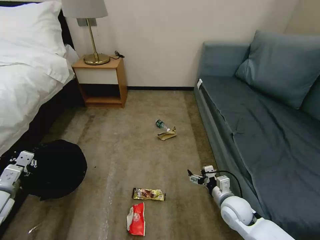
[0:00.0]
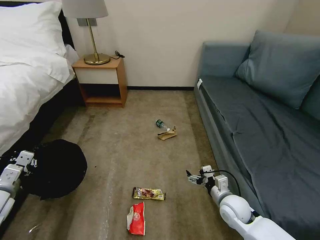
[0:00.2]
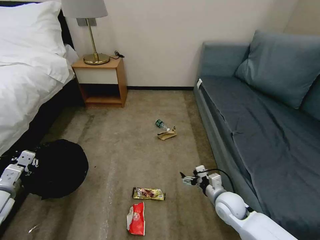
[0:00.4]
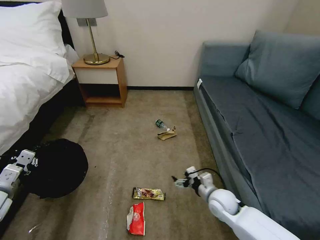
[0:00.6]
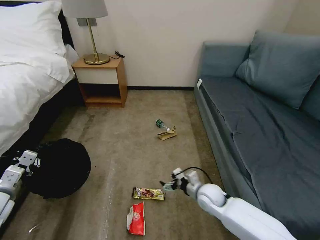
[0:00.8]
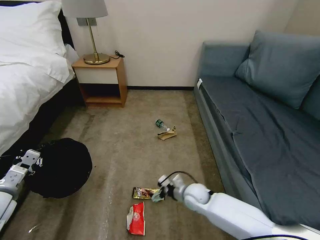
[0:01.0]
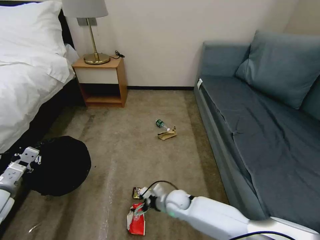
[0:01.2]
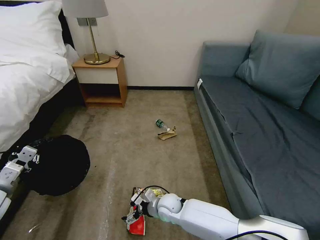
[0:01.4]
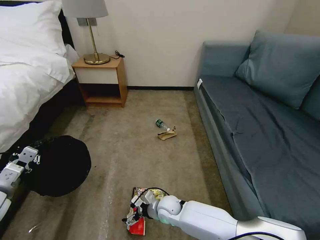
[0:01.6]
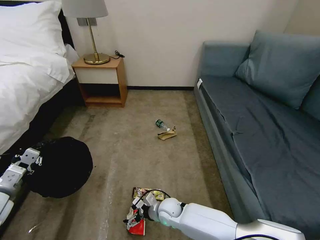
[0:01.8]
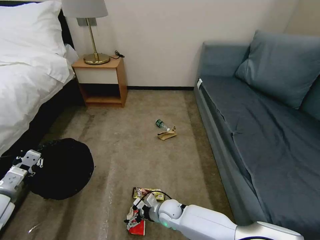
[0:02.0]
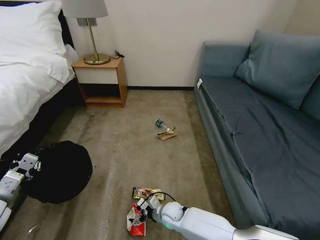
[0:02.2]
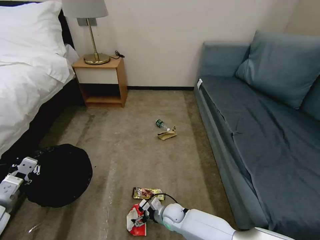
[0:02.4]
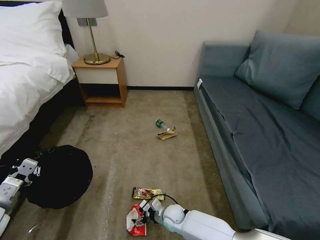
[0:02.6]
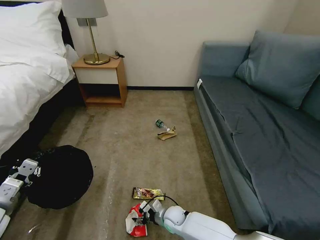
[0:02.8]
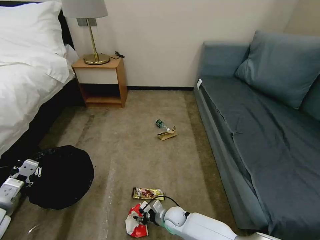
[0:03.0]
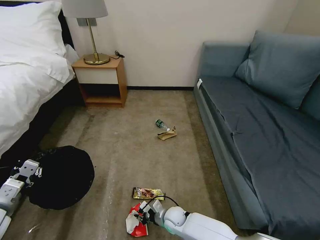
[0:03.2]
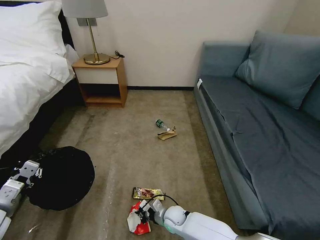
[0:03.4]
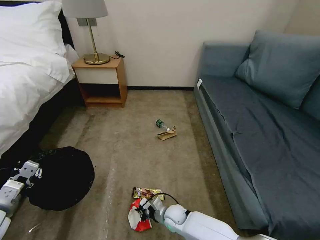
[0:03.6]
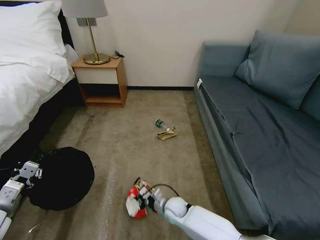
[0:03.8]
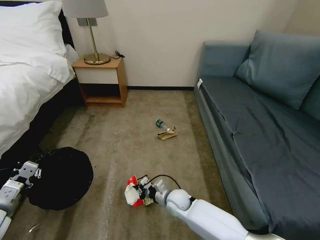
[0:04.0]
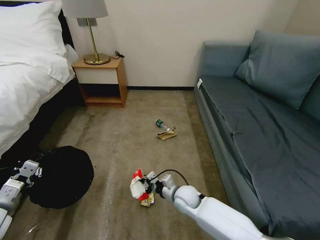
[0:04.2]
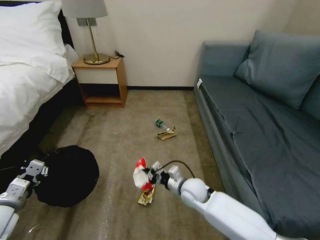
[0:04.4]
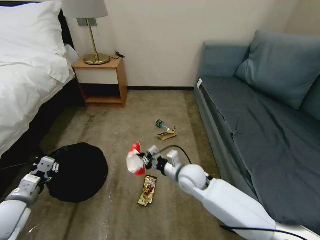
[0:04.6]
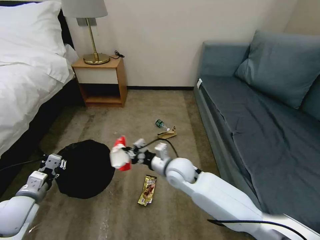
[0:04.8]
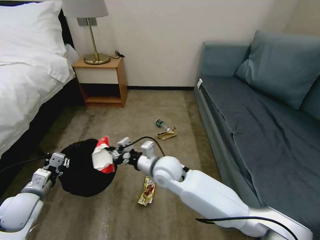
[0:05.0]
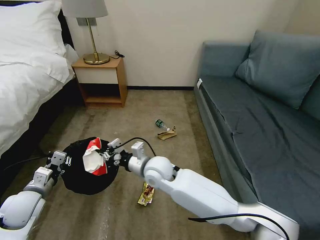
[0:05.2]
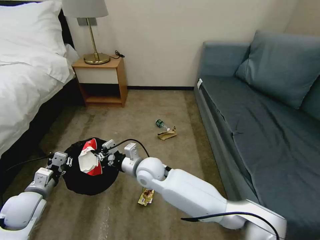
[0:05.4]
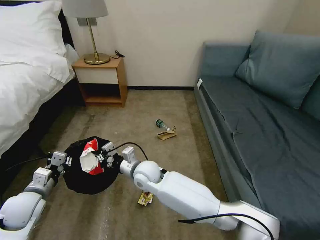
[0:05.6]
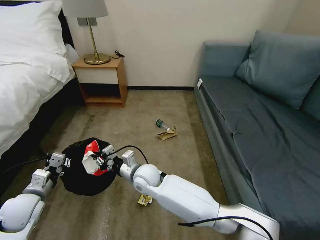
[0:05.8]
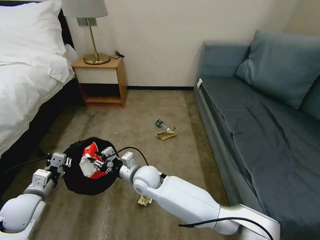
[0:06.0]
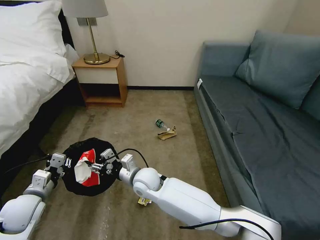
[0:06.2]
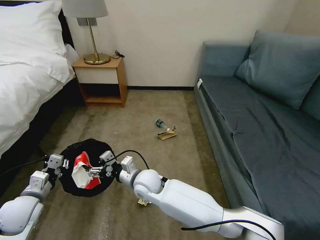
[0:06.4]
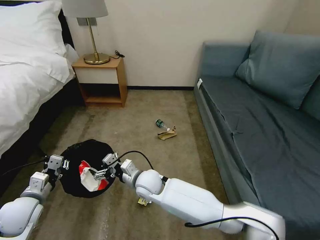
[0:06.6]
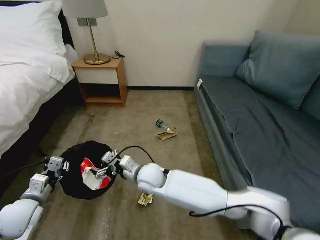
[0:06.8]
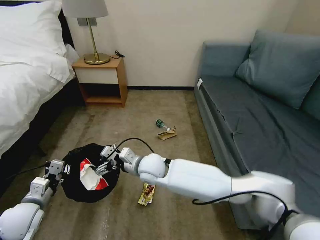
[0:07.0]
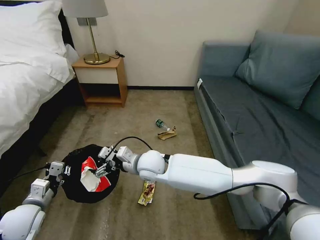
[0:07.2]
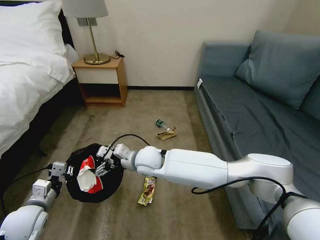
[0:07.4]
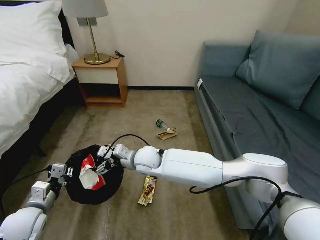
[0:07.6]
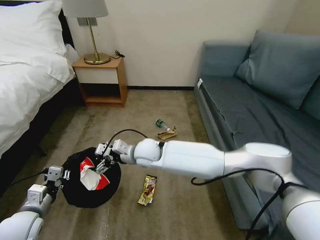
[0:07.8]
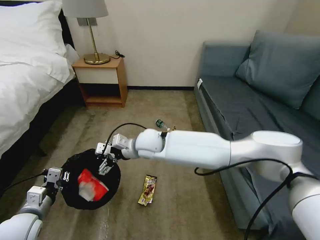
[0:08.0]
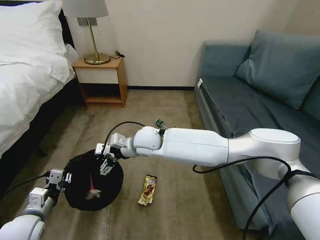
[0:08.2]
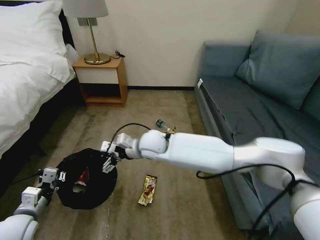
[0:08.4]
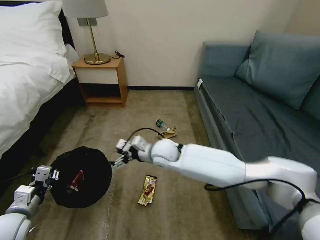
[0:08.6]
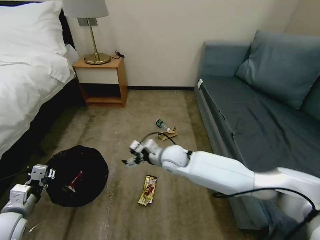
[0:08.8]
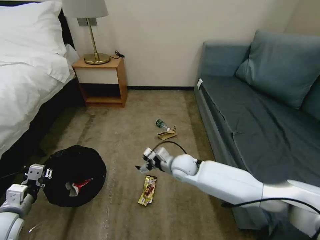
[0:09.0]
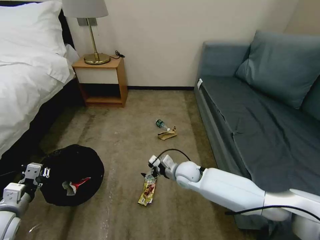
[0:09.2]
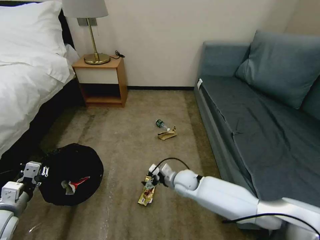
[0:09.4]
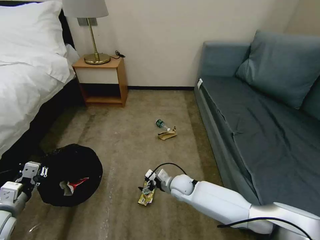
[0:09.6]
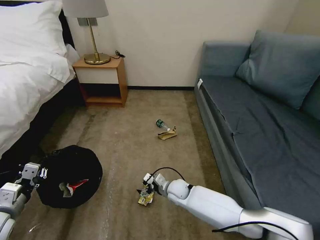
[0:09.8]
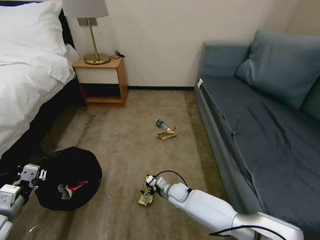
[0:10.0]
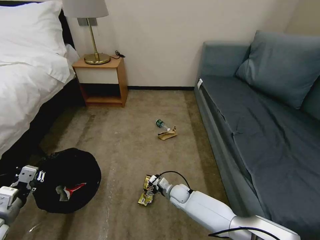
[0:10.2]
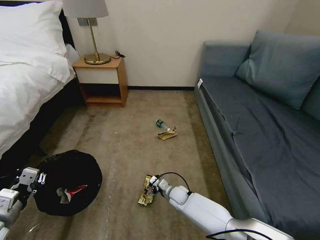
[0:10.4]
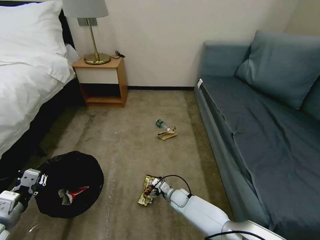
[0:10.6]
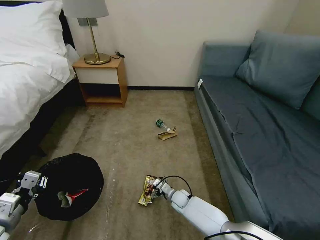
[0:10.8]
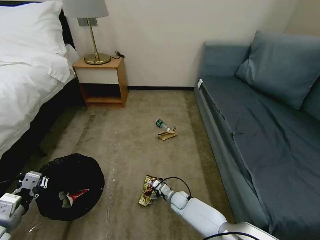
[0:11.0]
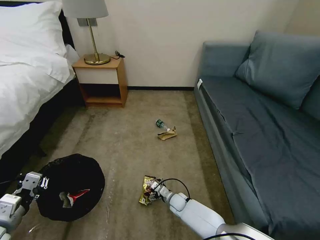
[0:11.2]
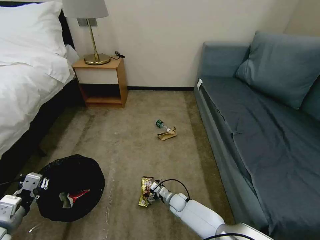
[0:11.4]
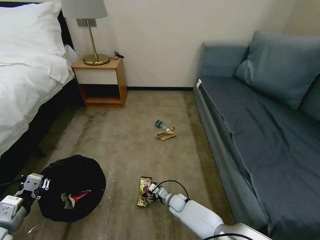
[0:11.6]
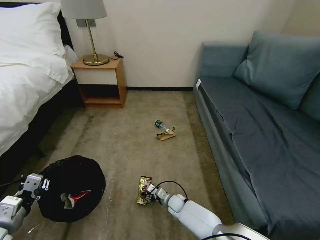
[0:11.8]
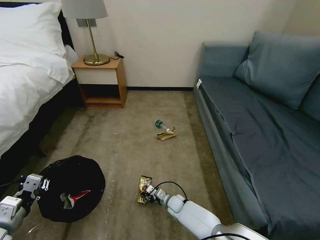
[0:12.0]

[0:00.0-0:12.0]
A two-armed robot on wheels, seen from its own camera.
Task of the whole recording: Pick up the trash bin, then pick up the garbage on the floor and place it into the trash bin.
0:00.0 to 0:01.6: The right gripper travels to the left by approximately 25 cm.
0:01.6 to 0:03.0: The right gripper shifts roughly 10 cm downward, and closes.
0:03.0 to 0:04.4: The right gripper moves upward, some 15 cm, and closes up.
0:04.4 to 0:06.0: The left gripper changes place by some 5 cm. The right gripper travels to the left by about 20 cm, and opens its fingers.
0:06.0 to 0:07.6: The right gripper shifts about 5 cm upward, and opens up.
0:07.6 to 0:09.0: The left gripper moves approximately 5 cm, while the right gripper travels to the right by roughly 15 cm.
0:09.0 to 0:10.4: The right gripper moves downward, roughly 20 cm.
0:10.4 to 0:12.0: The right gripper goes about 5 cm downward, and closes its fingers.

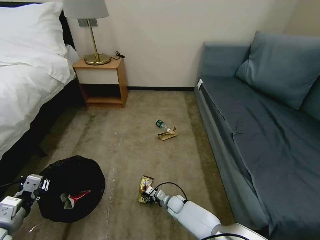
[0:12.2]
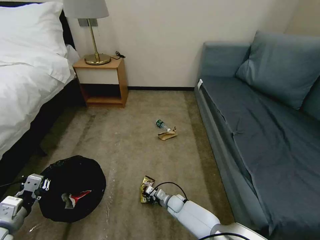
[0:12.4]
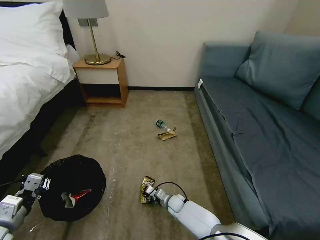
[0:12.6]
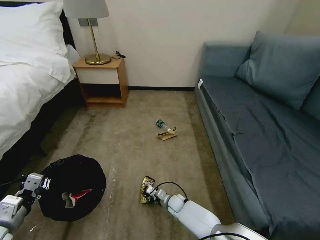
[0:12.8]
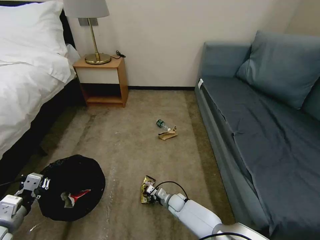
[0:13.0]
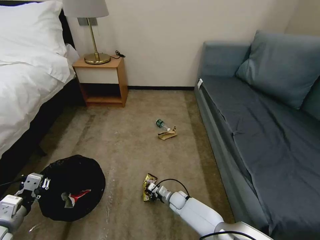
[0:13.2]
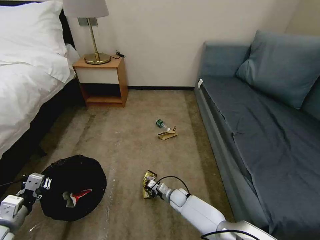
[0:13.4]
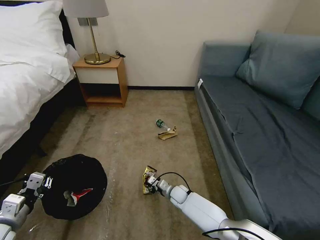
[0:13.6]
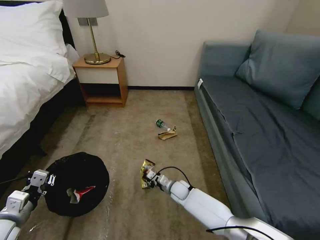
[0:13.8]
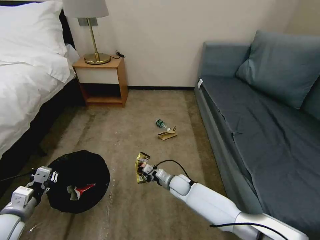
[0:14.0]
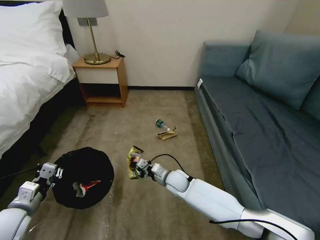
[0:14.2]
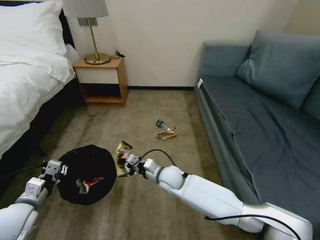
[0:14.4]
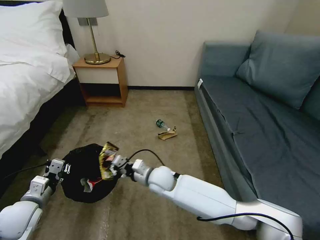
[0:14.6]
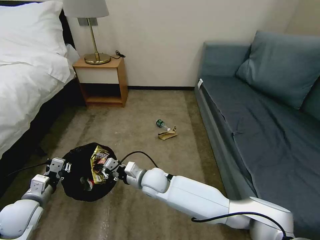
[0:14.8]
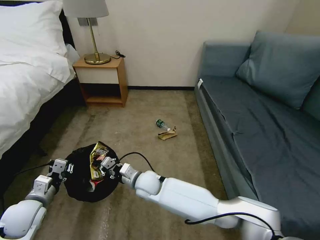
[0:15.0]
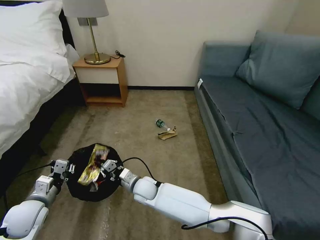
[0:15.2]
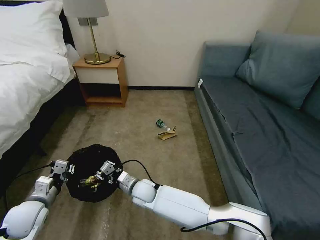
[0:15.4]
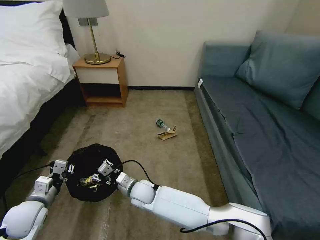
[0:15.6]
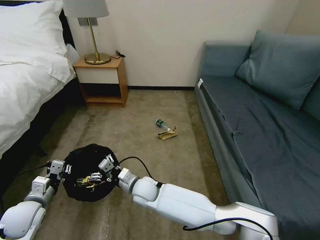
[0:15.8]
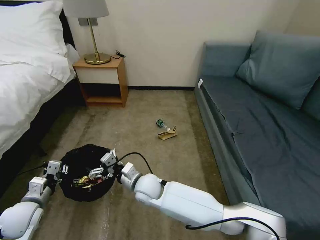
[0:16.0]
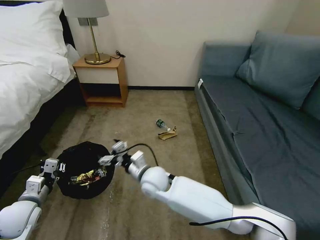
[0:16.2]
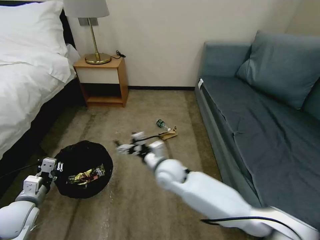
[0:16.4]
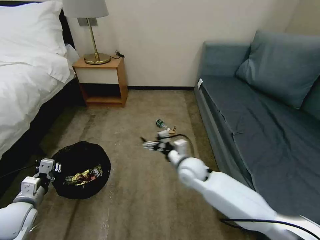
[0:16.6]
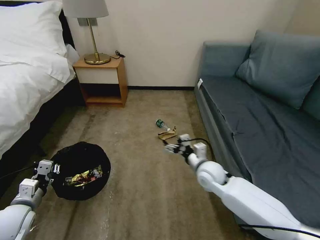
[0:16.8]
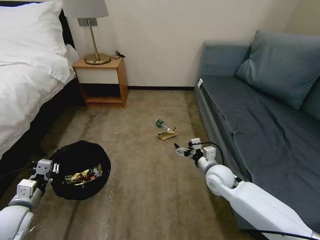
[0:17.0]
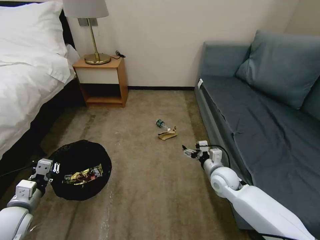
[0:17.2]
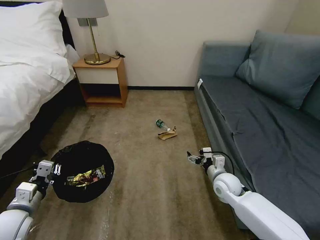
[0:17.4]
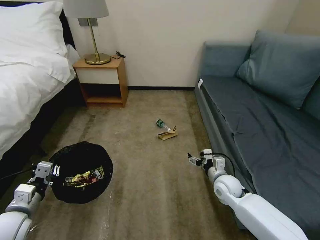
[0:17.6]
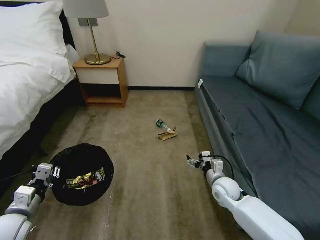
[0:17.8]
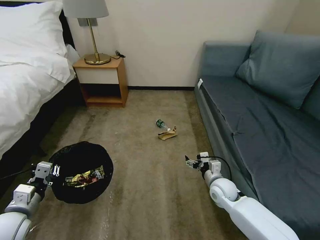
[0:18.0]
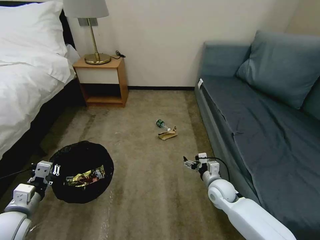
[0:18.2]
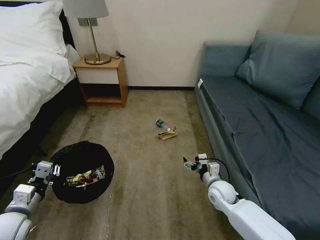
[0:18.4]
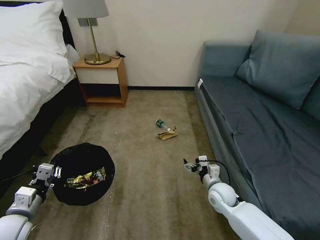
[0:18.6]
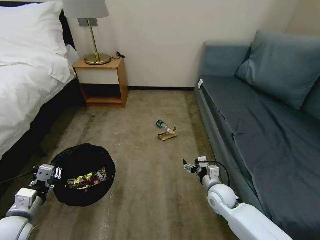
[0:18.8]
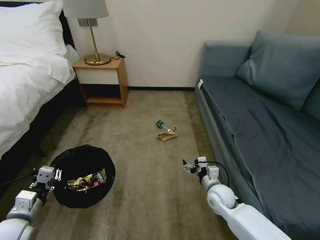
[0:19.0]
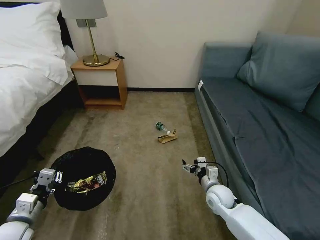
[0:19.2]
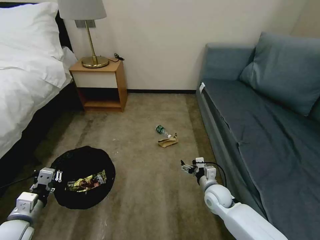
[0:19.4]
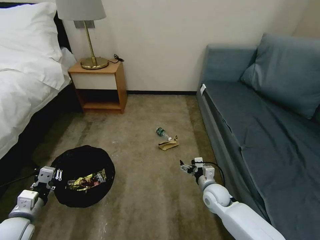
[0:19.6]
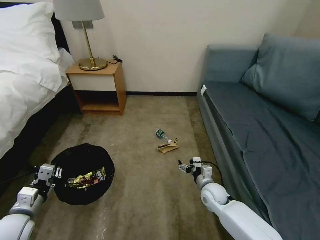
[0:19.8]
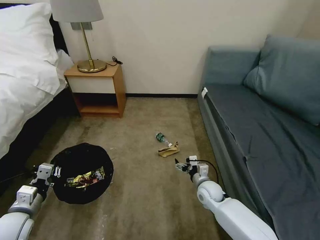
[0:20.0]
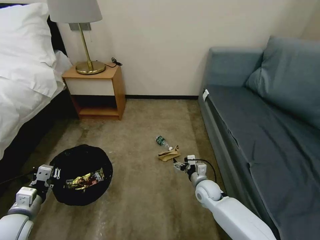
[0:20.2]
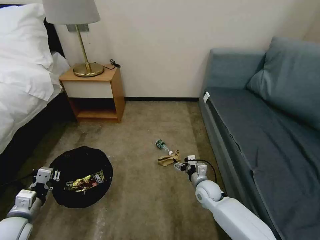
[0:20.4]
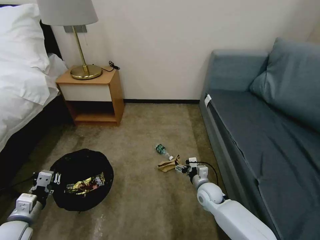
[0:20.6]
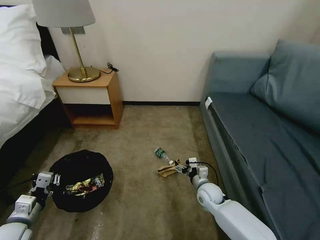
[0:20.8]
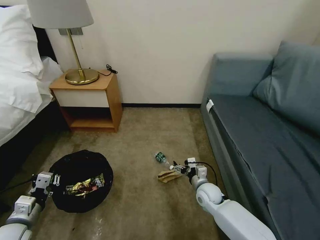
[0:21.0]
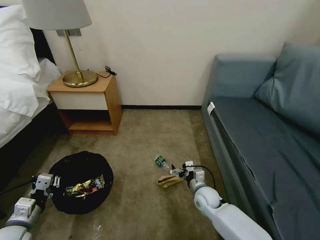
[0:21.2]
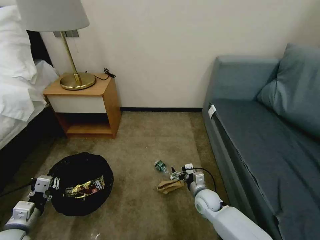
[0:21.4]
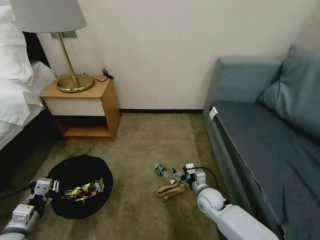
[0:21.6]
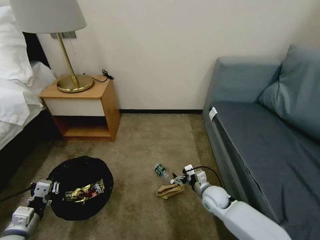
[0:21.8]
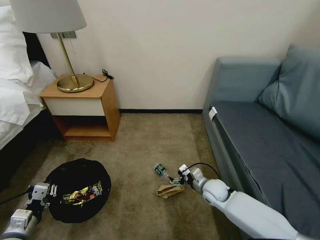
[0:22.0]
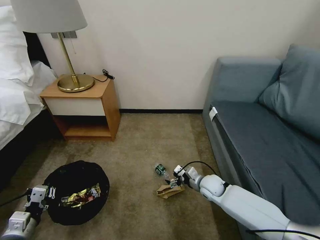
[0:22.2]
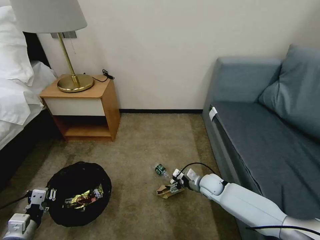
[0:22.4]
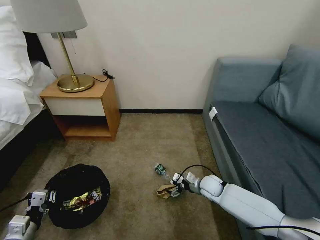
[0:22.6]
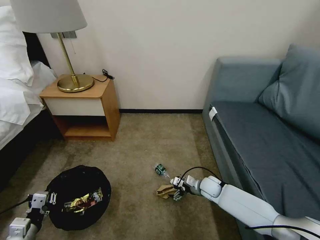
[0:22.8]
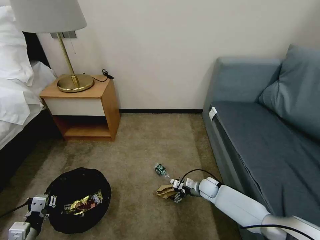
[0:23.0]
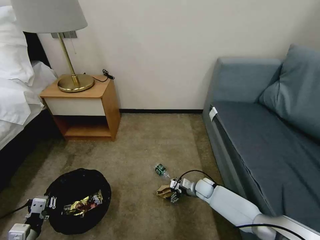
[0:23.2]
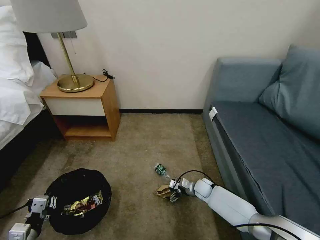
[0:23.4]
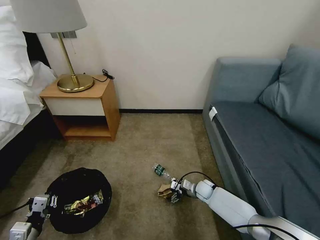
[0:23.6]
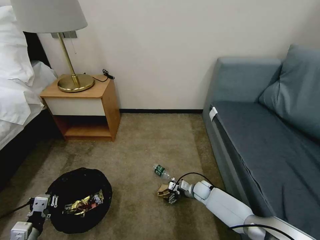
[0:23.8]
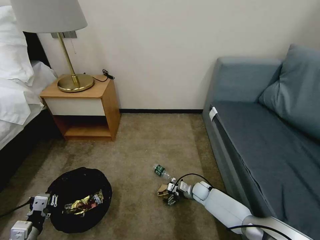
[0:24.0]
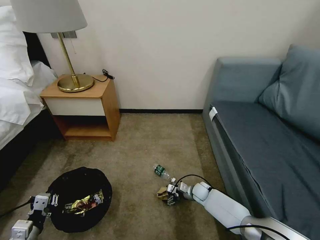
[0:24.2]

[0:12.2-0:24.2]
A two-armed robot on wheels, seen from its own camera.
Task of the whole recording: Pick up the trash bin, then pick up the garbage on the floor and place it into the trash bin.
0:12.2 to 0:13.8: The right gripper travels upward by about 10 cm.
0:13.8 to 0:15.2: The left gripper travels forward by approximately 5 cm. The right gripper goes some 20 cm to the left and upward.
0:15.2 to 0:16.6: The right gripper shifts about 20 cm to the right and upward, and opens its fingers.
0:16.6 to 0:18.2: The right gripper shifts roughly 15 cm to the right and downward.
0:18.2 to 0:19.8: The grippers stay close to where they were, moving slightly.
0:21.2 to 0:22.6: The left gripper shifts by roughly 5 cm. The right gripper travels forward by some 5 cm.
0:22.6 to 0:24.2: The right gripper shifts approximately 10 cm downward.
